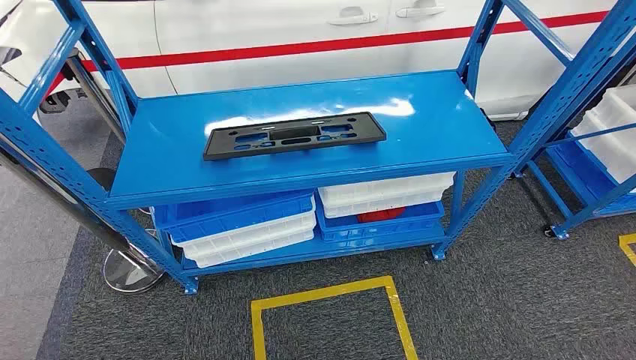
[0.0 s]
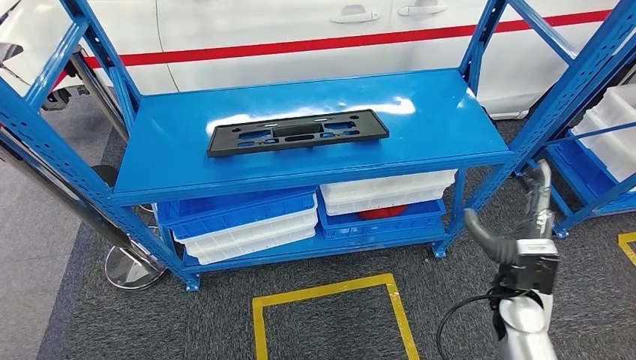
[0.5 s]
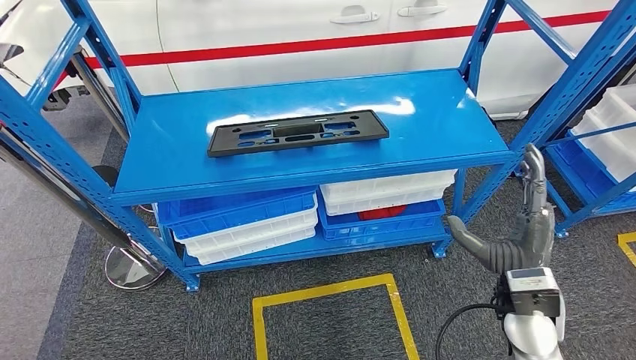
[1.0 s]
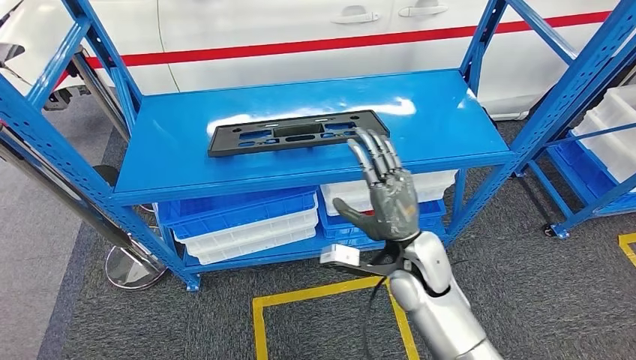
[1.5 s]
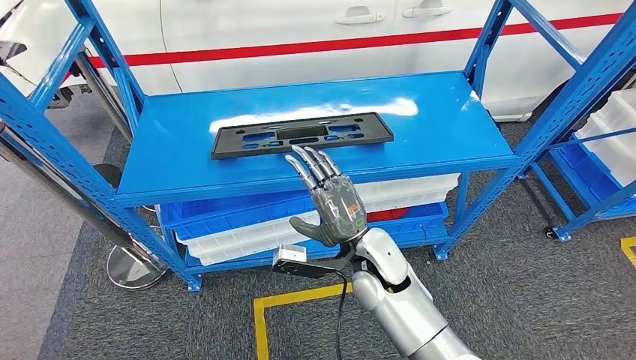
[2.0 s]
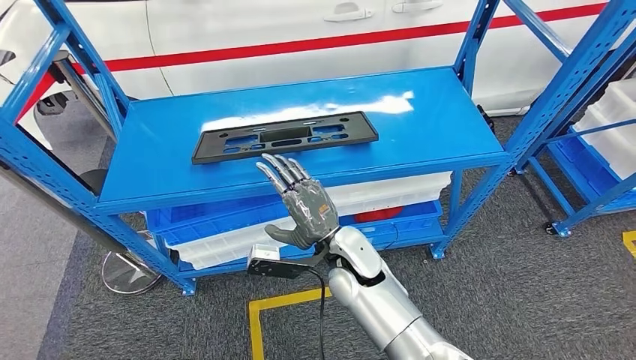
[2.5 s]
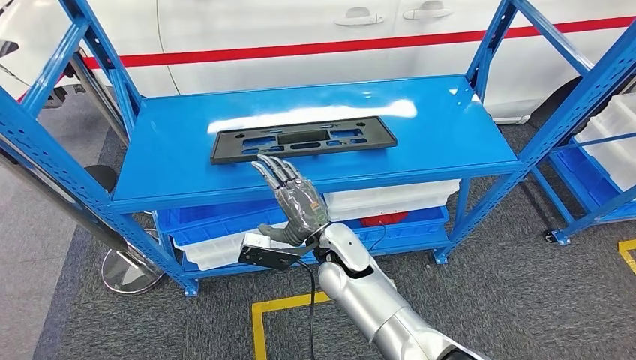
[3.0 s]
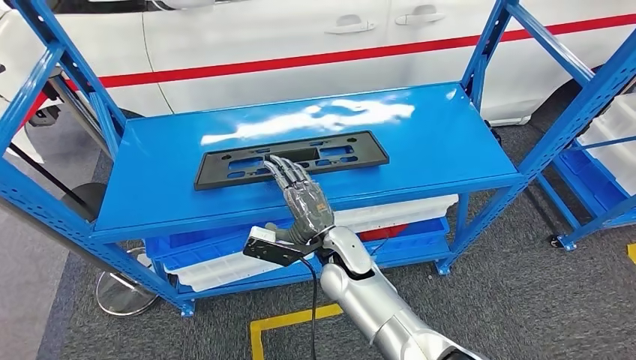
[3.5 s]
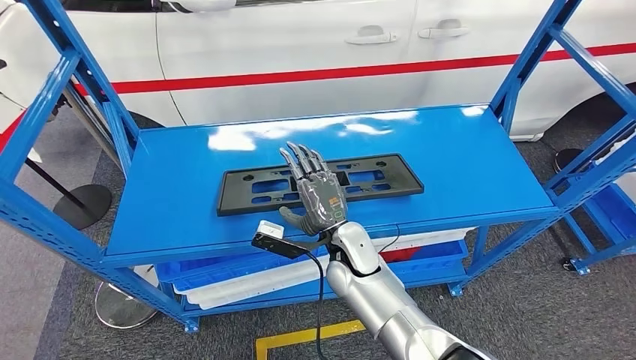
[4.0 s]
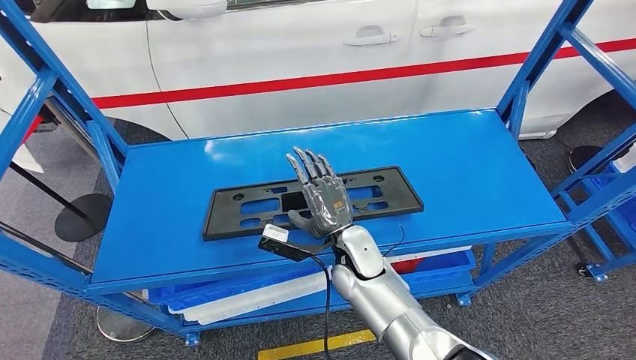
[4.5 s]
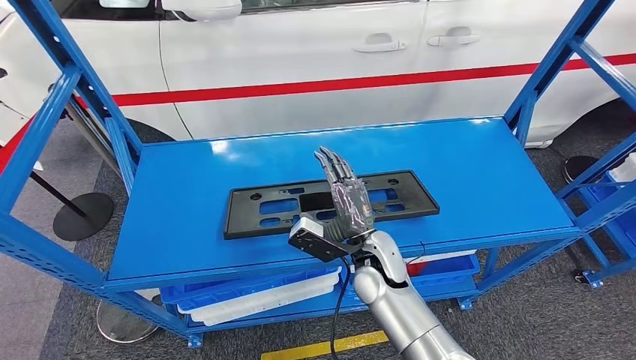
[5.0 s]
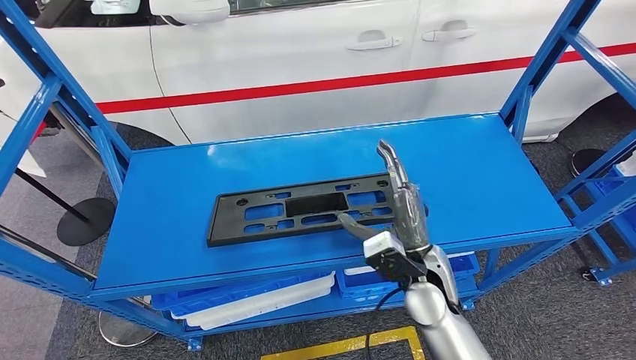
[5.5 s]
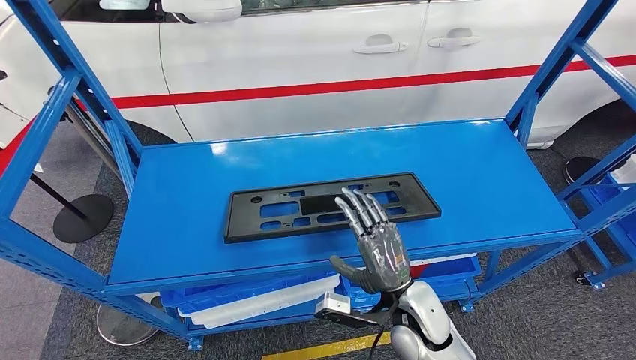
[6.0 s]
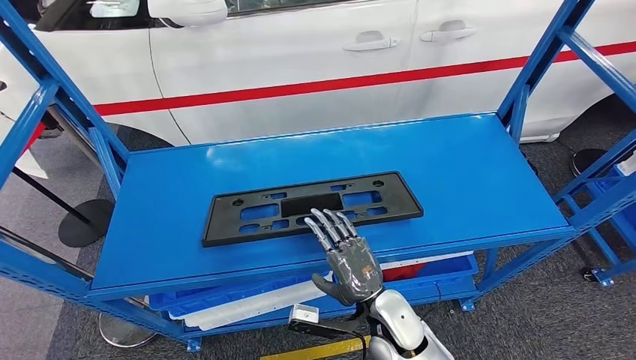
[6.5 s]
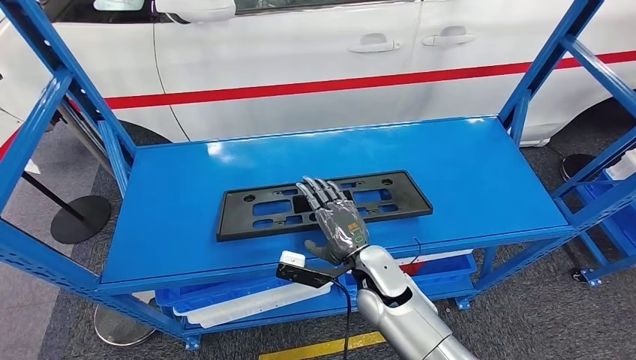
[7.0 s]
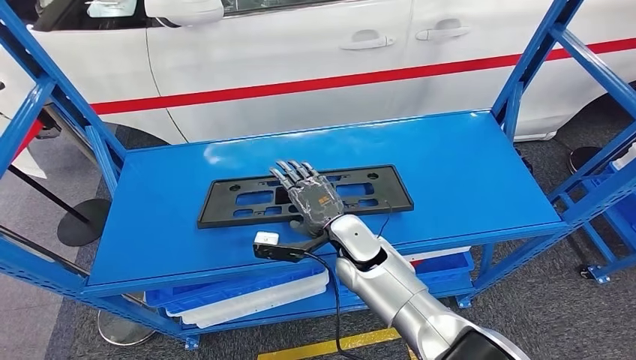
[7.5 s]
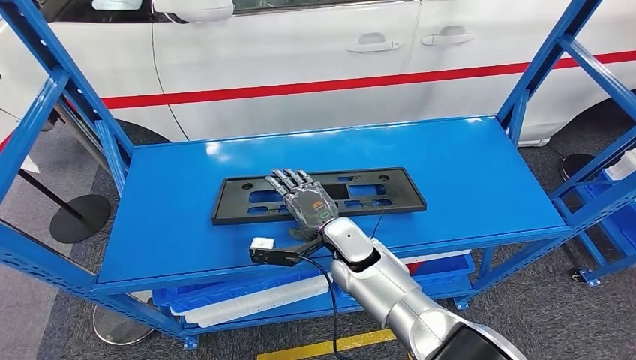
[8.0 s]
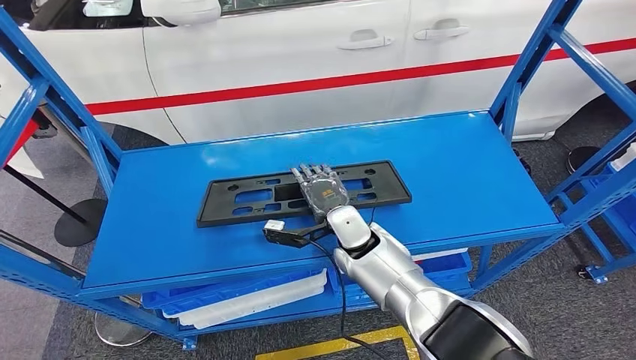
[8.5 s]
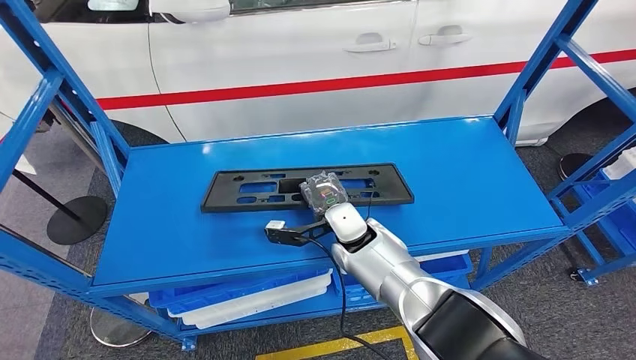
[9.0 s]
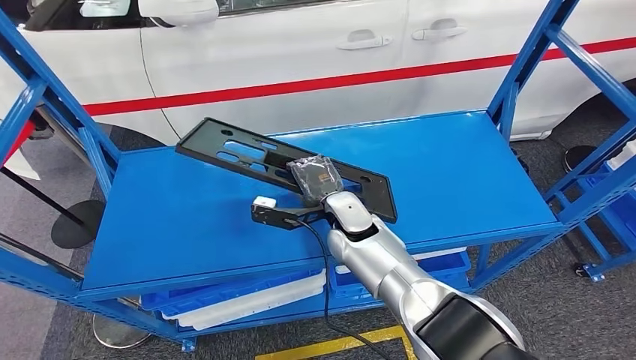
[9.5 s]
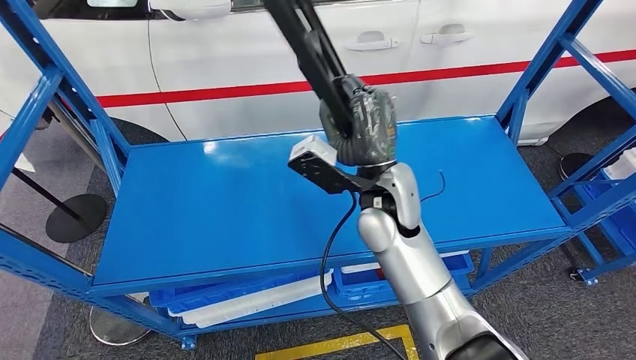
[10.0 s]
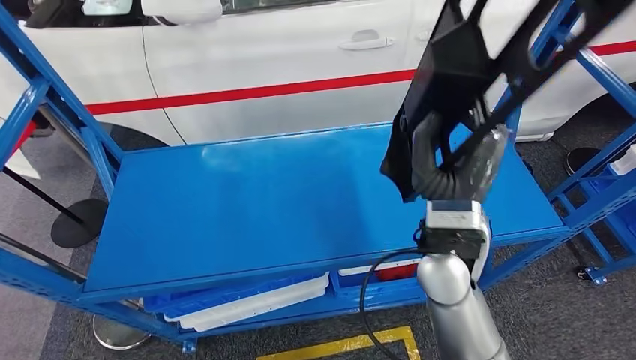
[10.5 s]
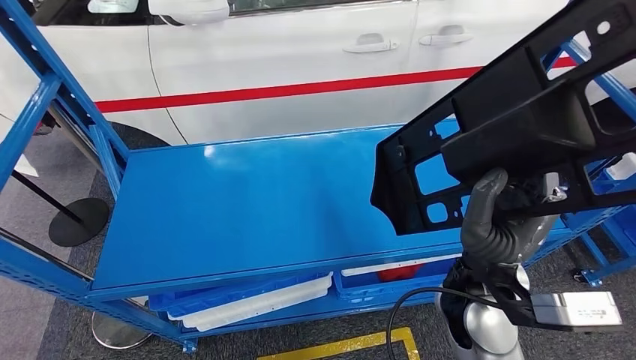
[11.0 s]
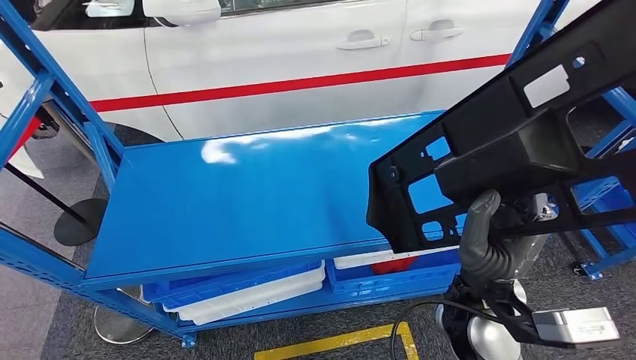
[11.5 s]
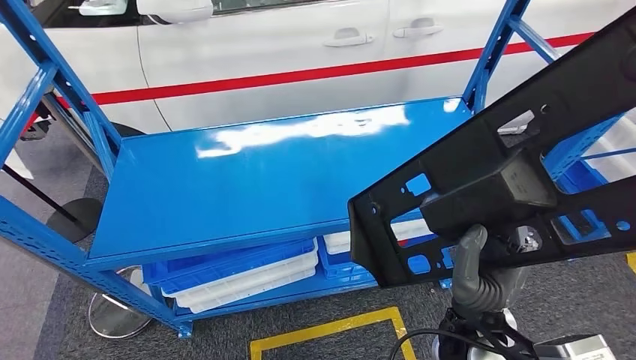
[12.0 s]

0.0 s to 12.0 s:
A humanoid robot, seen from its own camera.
Step, 0.0 to 10.5 s: Pick up the large material from the shelf.

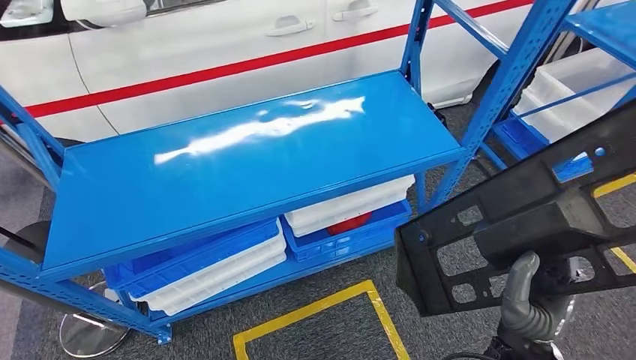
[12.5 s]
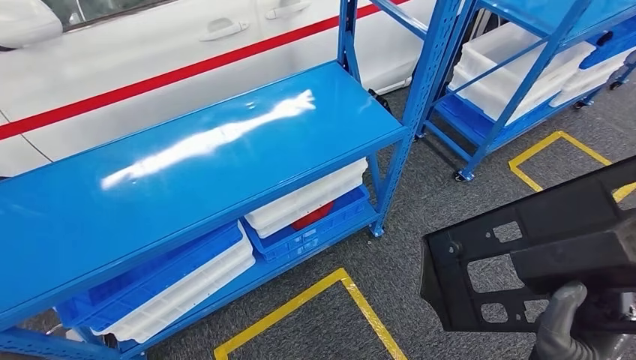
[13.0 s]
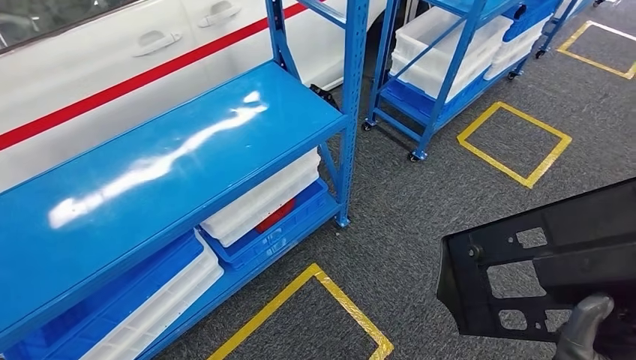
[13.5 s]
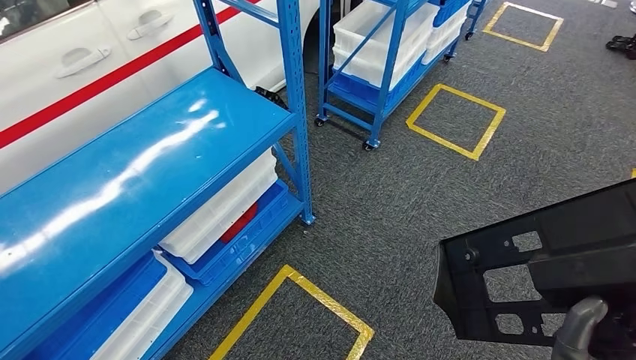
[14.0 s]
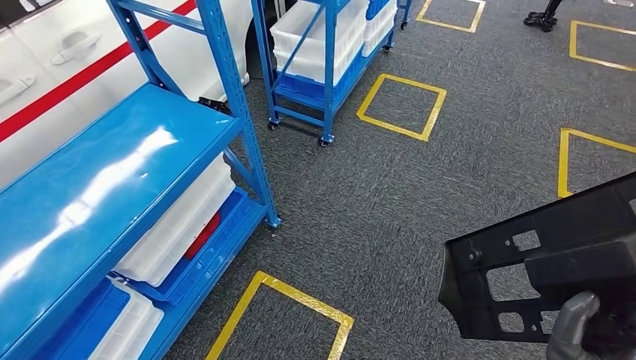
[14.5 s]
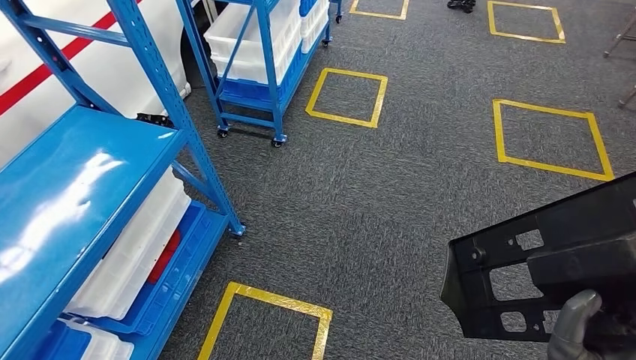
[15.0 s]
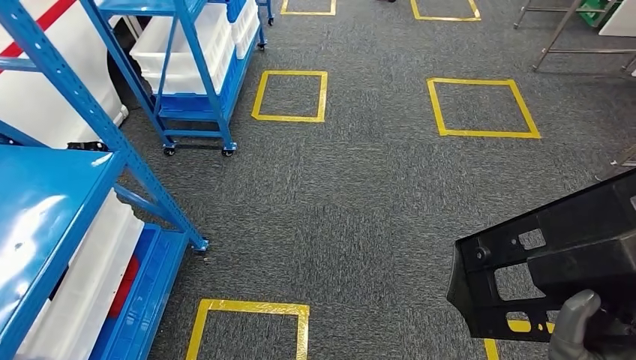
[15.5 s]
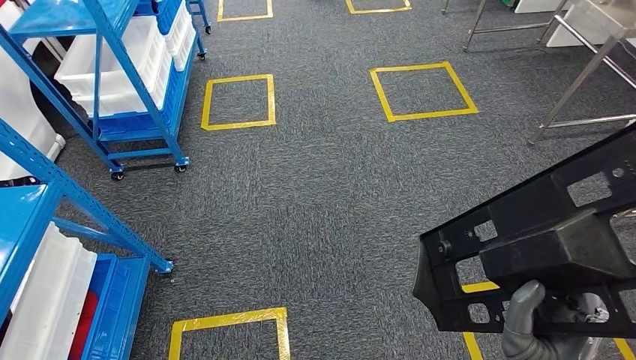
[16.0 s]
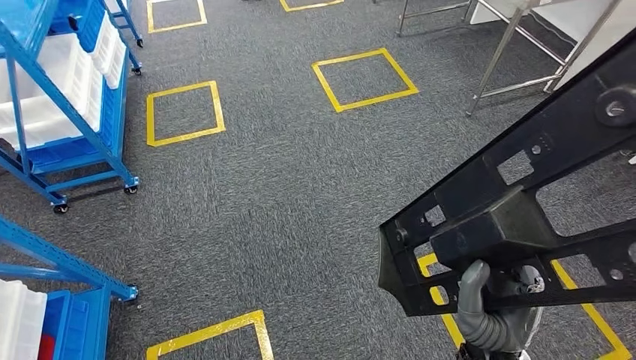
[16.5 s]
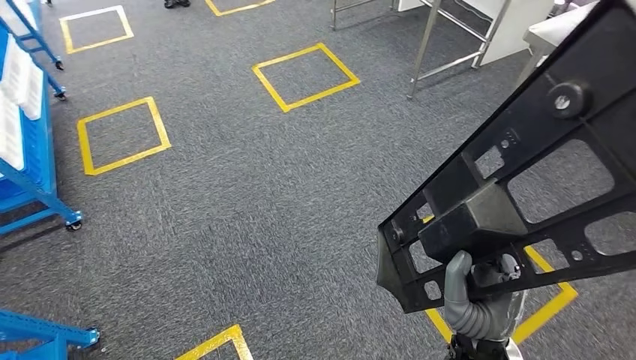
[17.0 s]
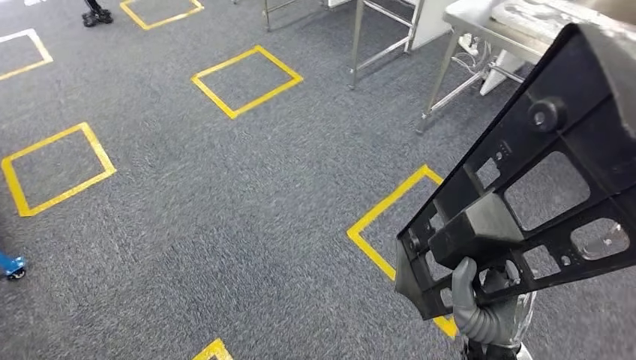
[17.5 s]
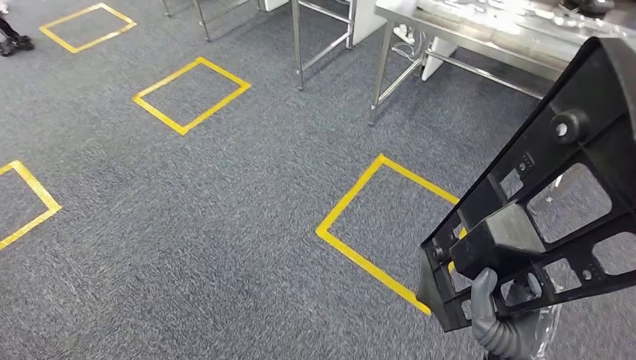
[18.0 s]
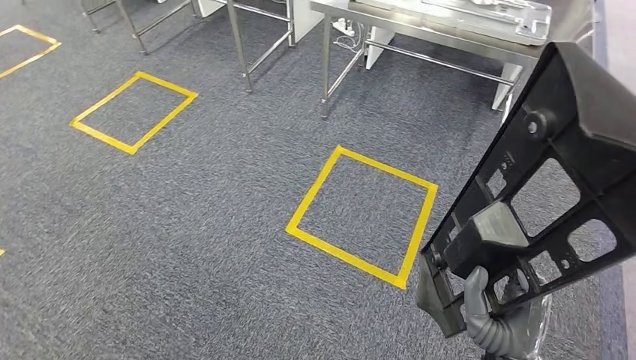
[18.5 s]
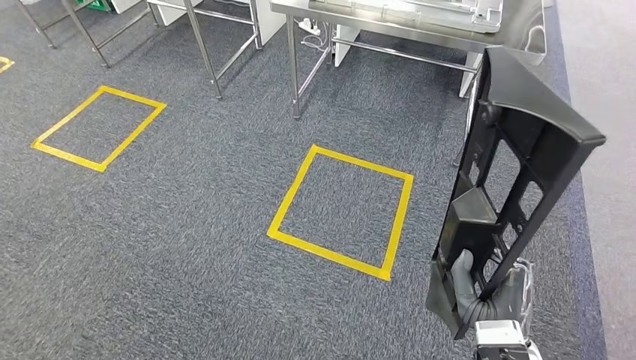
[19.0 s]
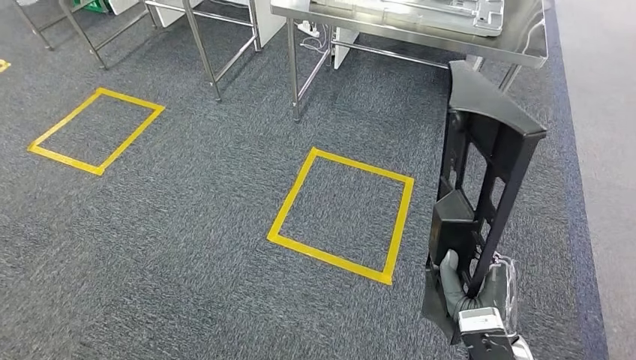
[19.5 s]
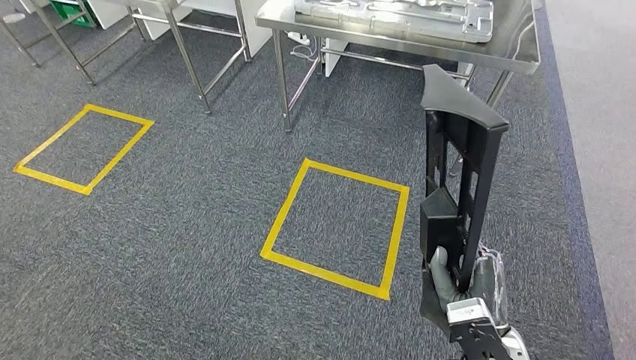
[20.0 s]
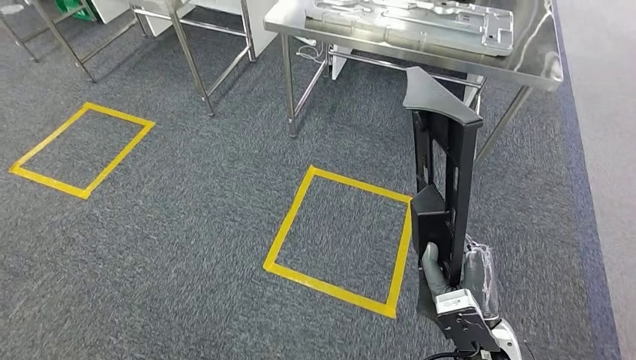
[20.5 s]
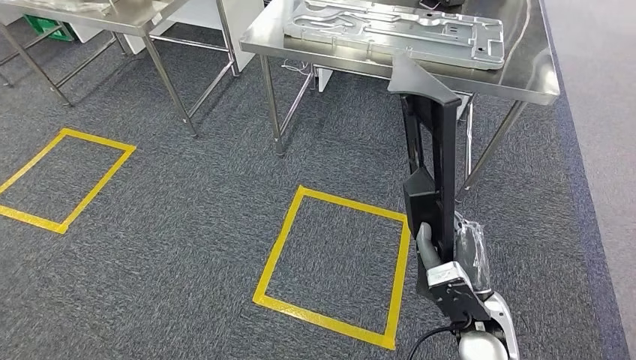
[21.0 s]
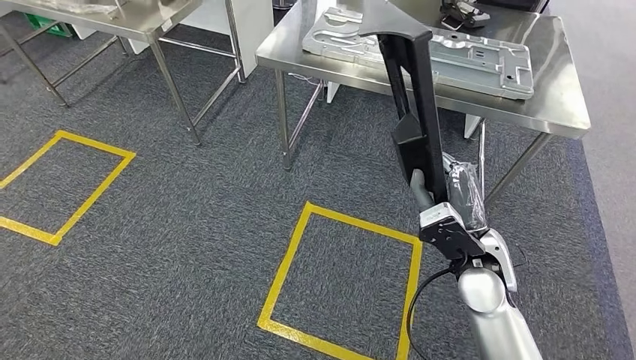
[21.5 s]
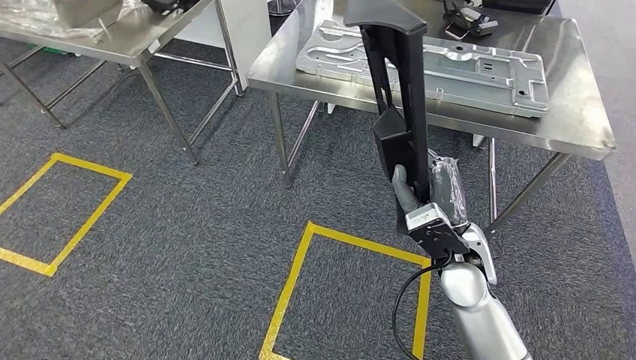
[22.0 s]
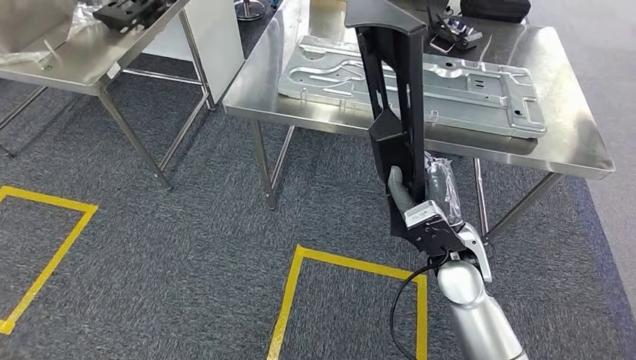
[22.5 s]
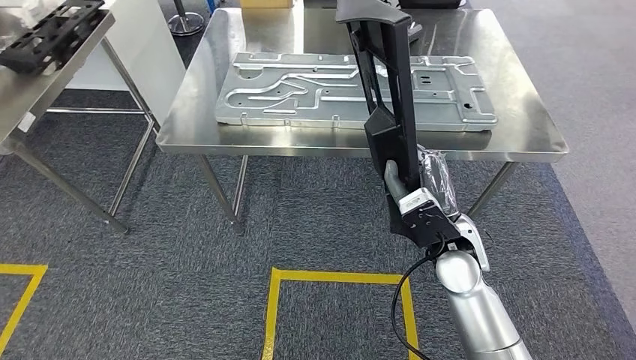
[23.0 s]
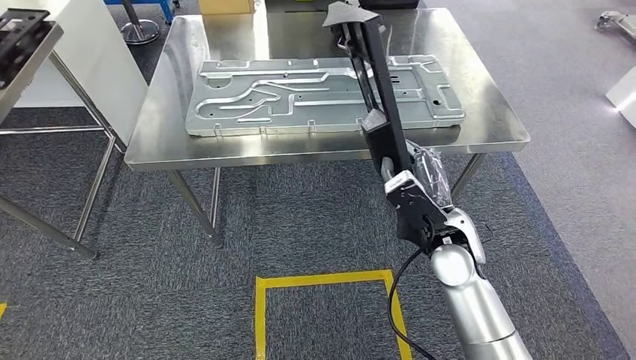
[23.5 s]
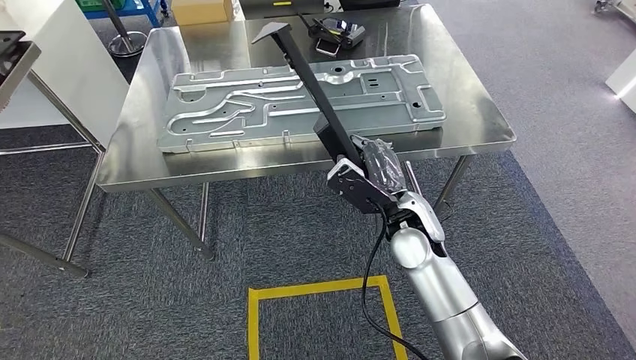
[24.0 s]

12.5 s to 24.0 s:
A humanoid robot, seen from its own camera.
Step, 12.5 to 23.5 s: Move the large material to the workbench.
